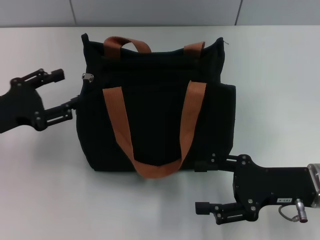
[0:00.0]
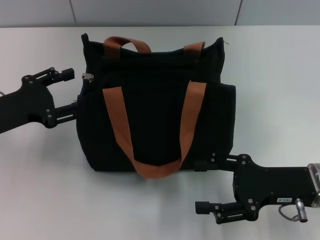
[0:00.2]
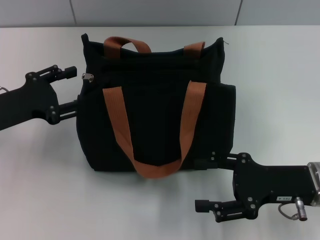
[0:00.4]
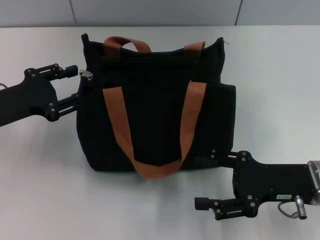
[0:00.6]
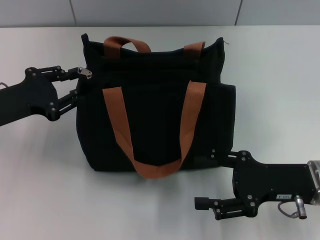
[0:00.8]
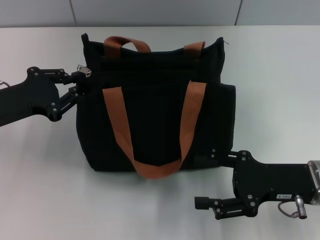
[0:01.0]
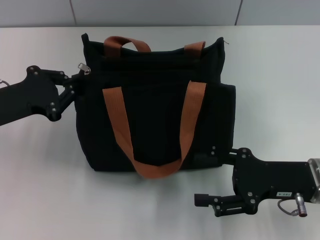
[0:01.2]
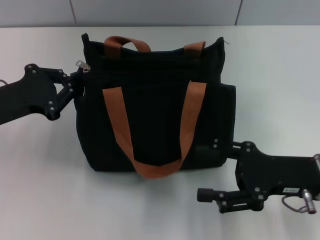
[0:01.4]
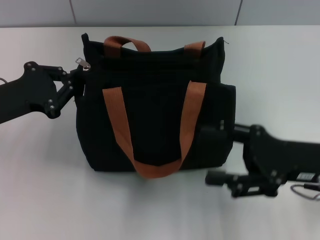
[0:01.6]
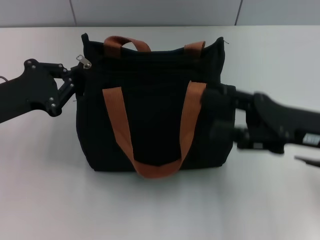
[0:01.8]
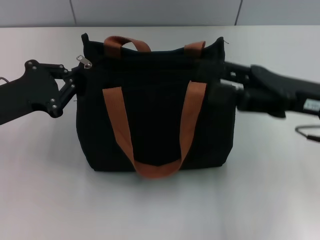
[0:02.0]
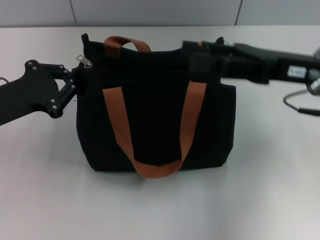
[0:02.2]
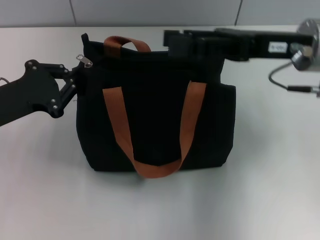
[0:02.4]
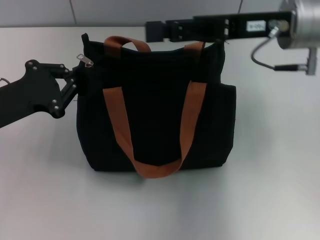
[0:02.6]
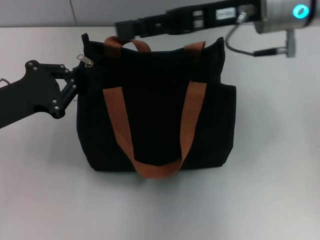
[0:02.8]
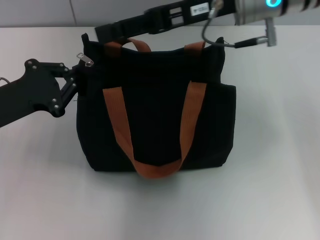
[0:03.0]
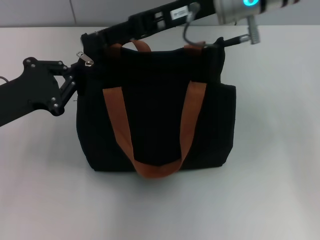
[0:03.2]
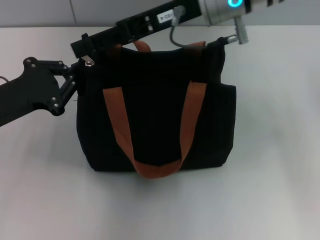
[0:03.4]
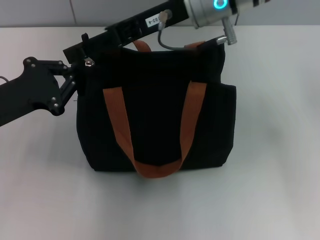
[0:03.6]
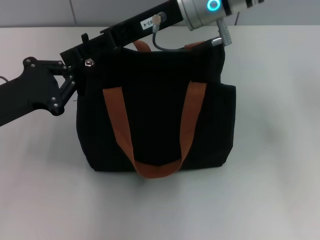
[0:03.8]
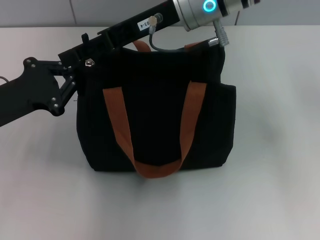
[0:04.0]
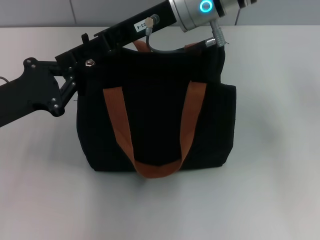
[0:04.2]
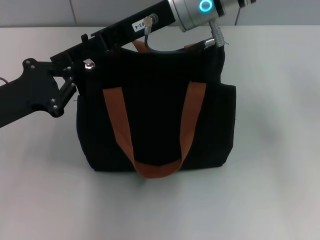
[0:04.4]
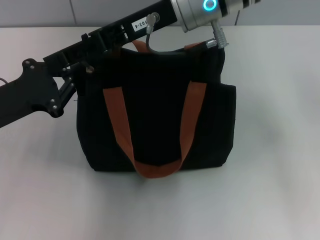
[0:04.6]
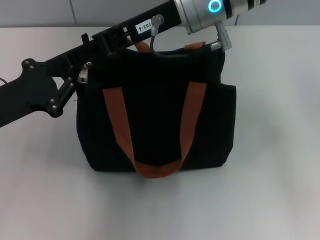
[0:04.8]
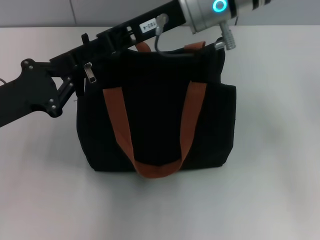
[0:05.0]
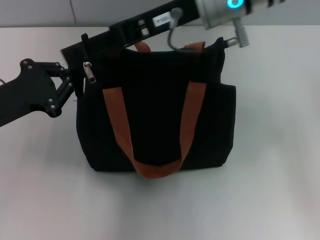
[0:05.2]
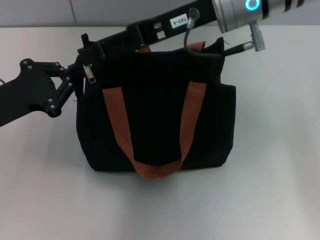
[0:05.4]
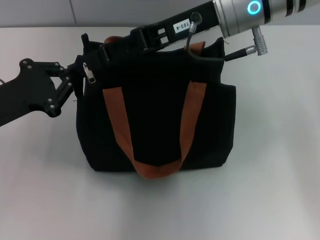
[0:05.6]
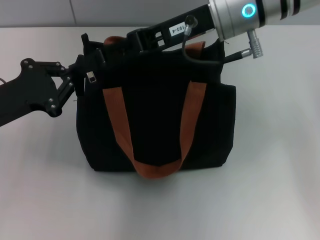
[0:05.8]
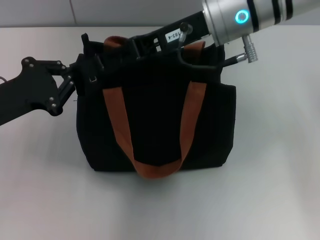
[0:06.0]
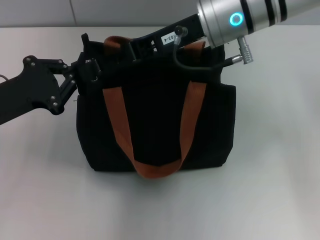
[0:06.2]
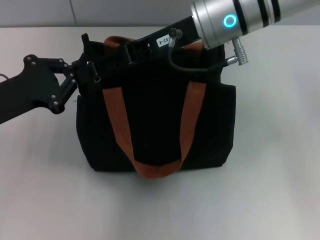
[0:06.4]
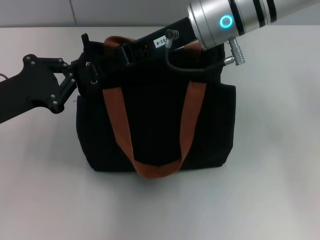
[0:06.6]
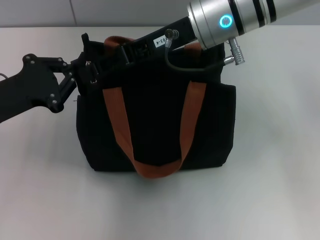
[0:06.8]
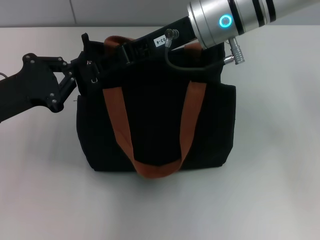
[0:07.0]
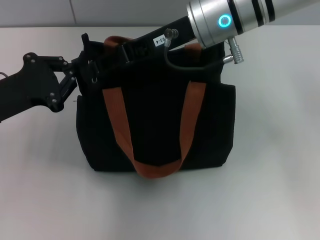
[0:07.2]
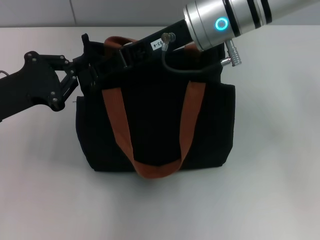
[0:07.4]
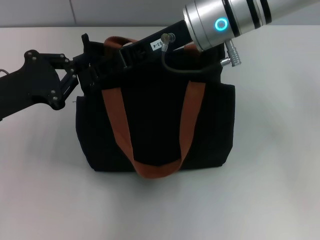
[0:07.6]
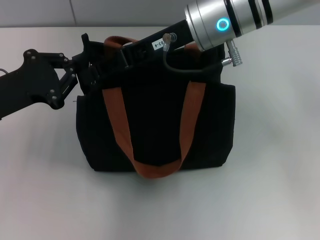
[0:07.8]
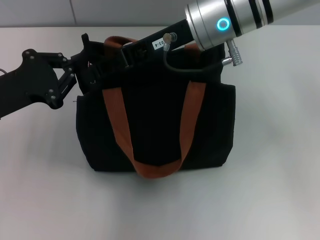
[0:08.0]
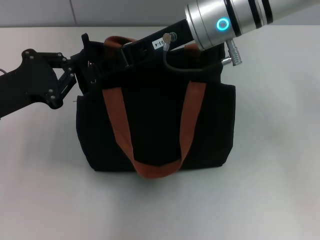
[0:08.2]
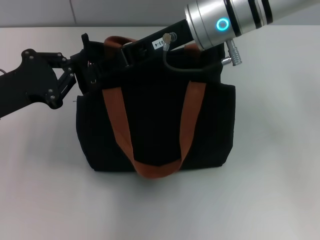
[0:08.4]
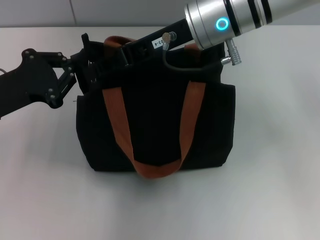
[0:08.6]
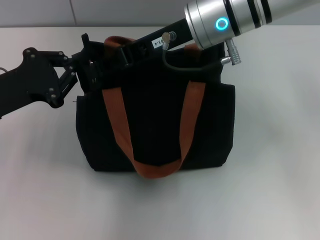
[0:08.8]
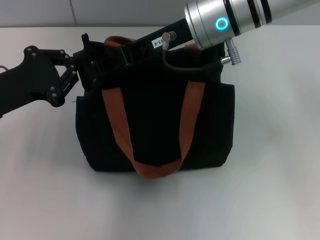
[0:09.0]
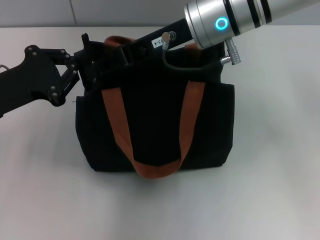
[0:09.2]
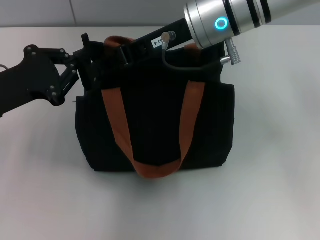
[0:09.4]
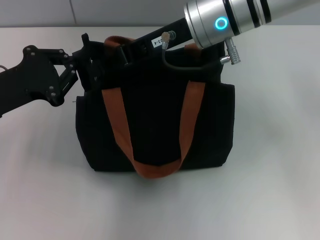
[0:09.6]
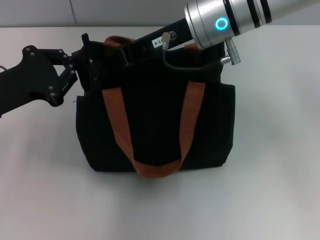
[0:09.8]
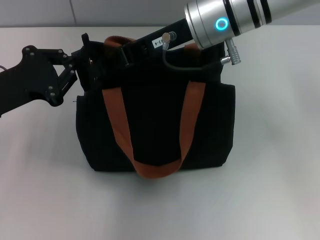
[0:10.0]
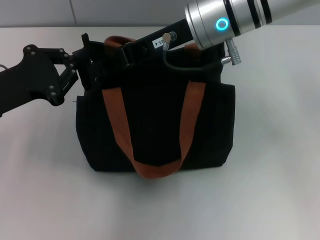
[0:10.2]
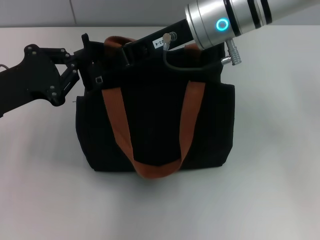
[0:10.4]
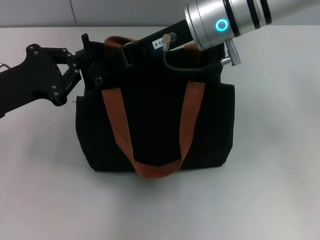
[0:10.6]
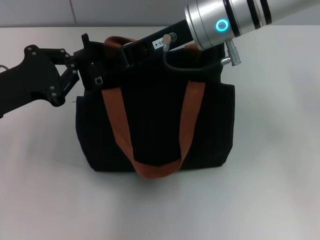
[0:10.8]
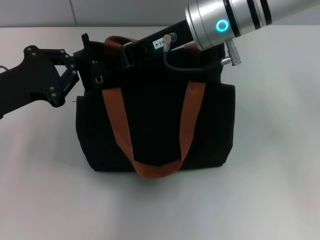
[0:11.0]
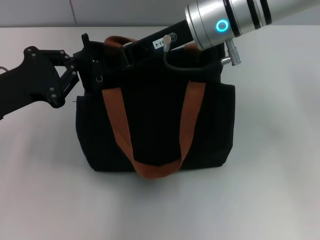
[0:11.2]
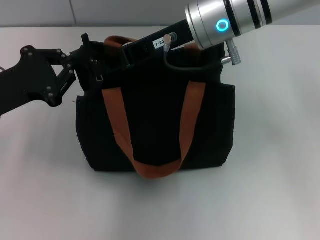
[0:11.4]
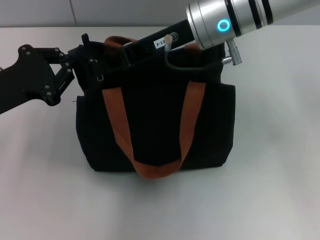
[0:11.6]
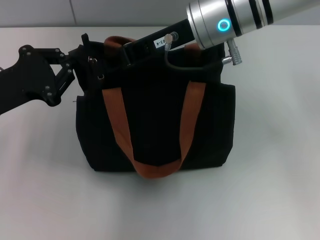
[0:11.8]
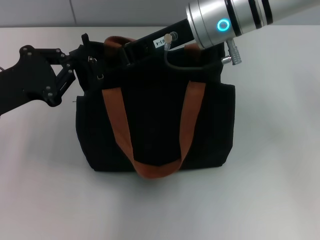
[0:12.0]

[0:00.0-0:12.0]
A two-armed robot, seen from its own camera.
0.0 to 1.6 s: The left gripper closes its fingers.
1.6 to 3.0 s: The right gripper goes approximately 25 cm forward, upward and to the left.
3.0 to 4.4 s: The right gripper moves to the left, about 5 cm.
4.4 to 7.6 s: The grippers move only a little.
7.6 to 12.0 s: Both grippers stay put.

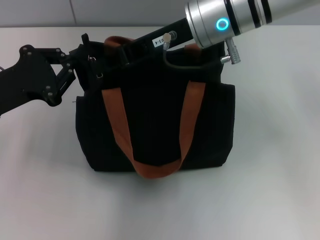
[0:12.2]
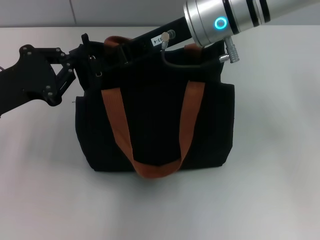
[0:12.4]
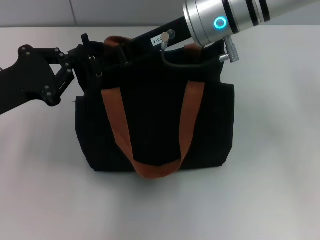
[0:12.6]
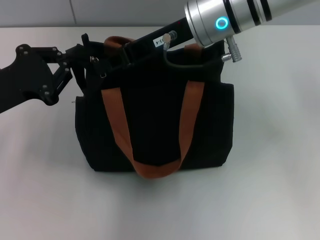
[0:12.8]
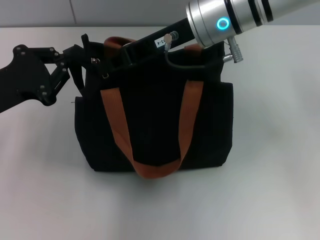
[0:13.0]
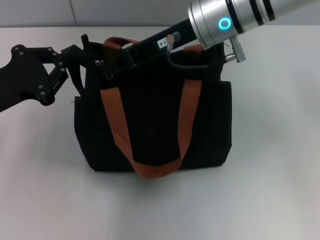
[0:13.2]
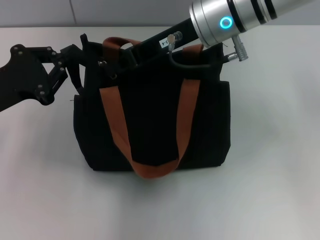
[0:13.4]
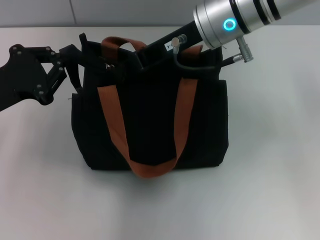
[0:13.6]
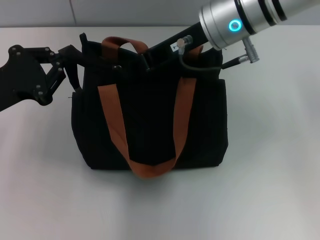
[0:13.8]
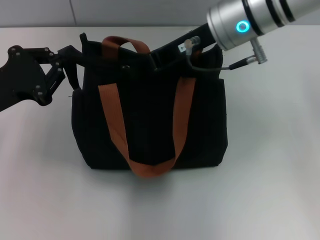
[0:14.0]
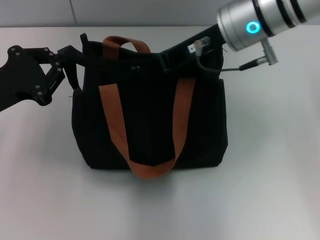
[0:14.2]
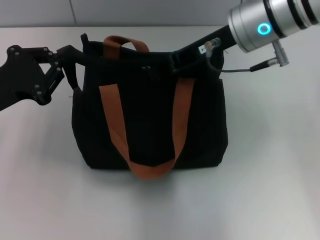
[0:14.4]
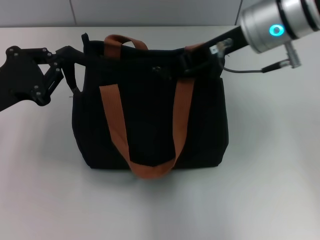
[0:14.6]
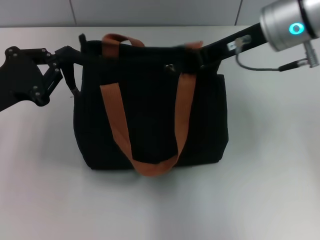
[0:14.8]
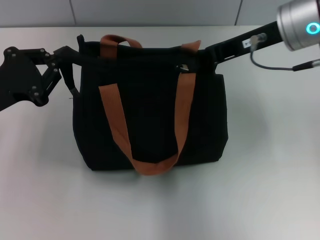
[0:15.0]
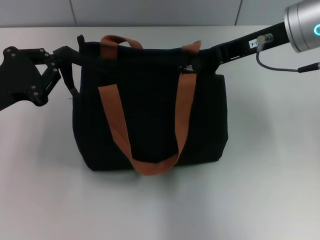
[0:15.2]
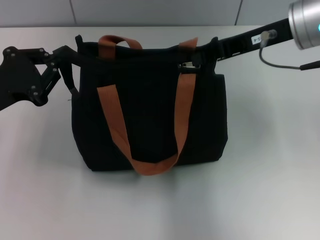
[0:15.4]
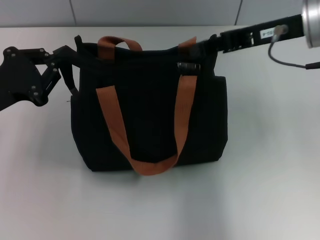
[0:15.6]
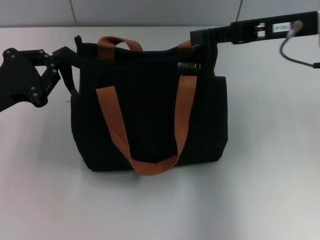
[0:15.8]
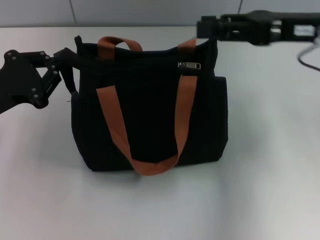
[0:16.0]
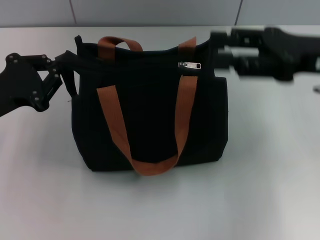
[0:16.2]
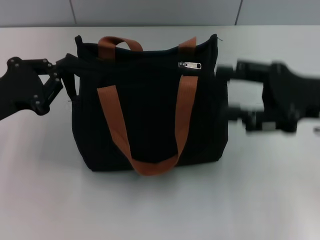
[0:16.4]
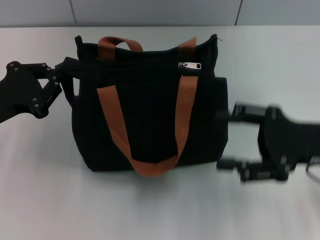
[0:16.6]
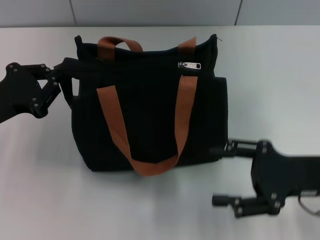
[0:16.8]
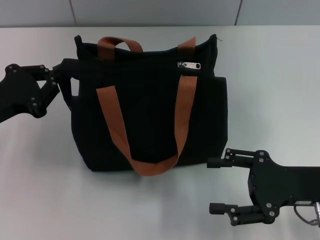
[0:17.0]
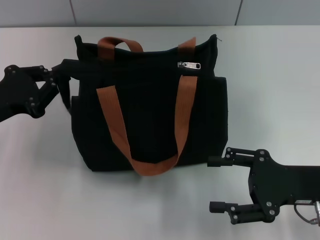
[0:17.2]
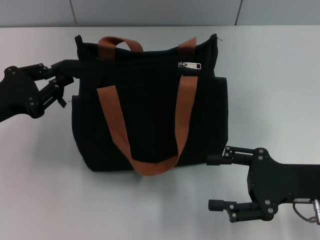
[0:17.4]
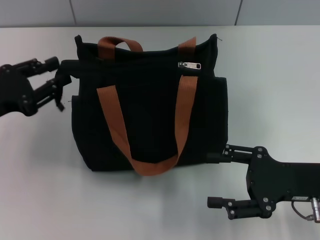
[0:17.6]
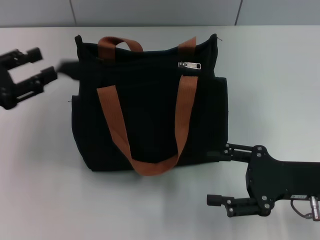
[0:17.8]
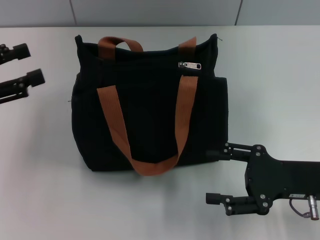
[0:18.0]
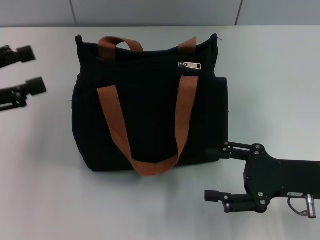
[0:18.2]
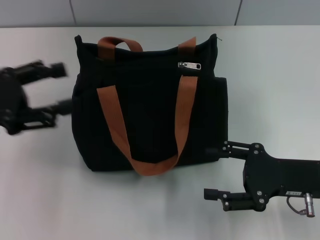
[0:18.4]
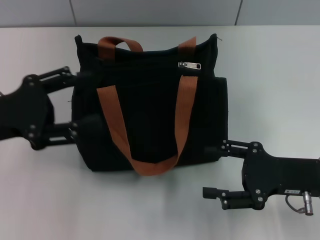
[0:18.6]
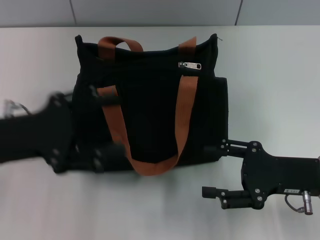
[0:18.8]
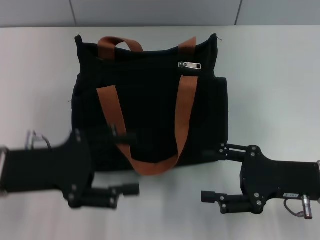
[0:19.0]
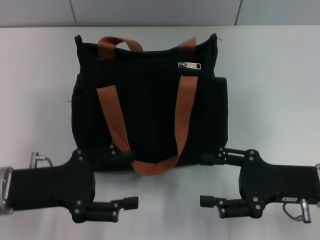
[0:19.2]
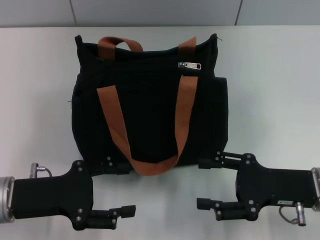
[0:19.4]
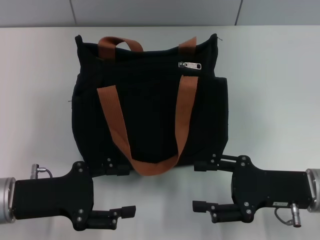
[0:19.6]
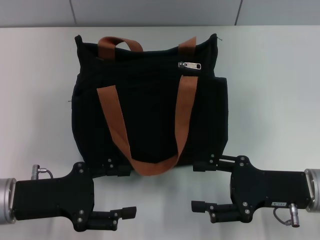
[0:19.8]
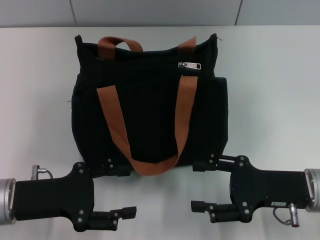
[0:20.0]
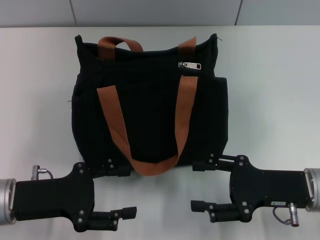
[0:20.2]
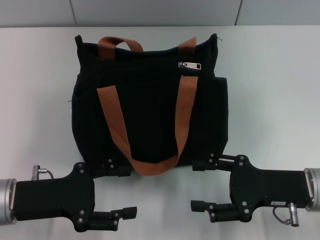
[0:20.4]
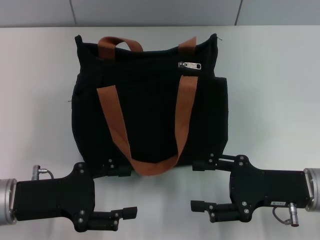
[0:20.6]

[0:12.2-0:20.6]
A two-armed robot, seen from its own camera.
Step, 12.2 to 15.8 s: Pull up the zipper with your right hand.
12.2 to 13.6 s: The grippers stay close to where they were, moving slightly.
13.6 to 15.0 s: The right gripper is displaced to the right by about 10 cm.
15.0 to 16.4 s: The right gripper heads backward, to the right and downward, covering roughly 15 cm, and opens its fingers.
16.4 to 17.8 s: The left gripper opens. Meanwhile the right gripper shifts some 10 cm downward and backward.
17.8 to 19.2 s: The left gripper moves to the right and backward, roughly 10 cm, and opens up.
19.2 to 20.6 s: The grippers make only small movements.

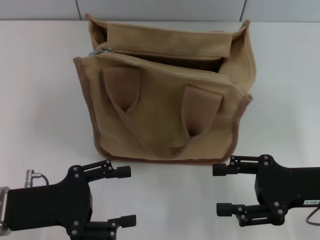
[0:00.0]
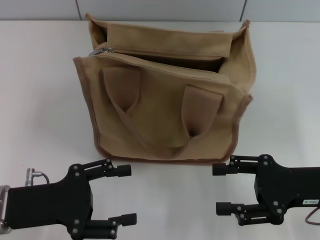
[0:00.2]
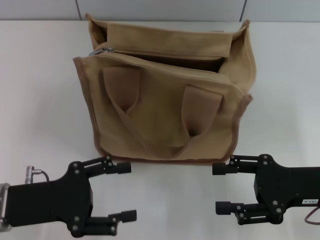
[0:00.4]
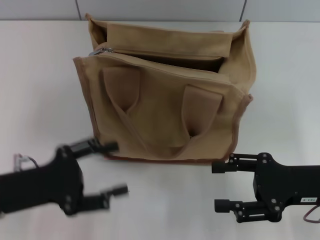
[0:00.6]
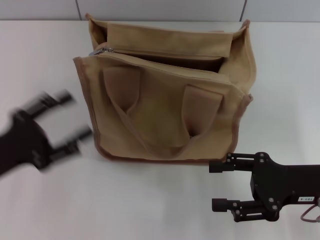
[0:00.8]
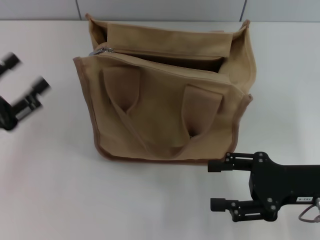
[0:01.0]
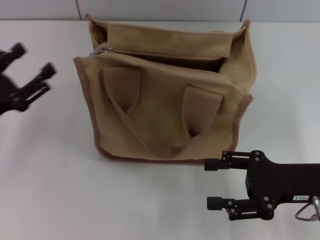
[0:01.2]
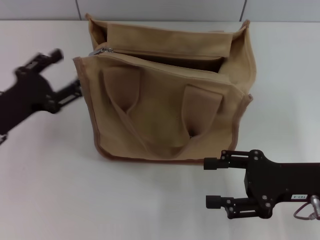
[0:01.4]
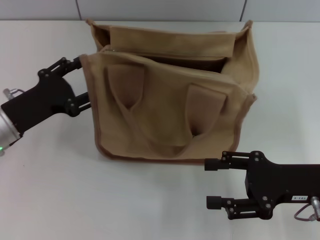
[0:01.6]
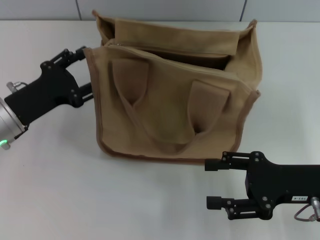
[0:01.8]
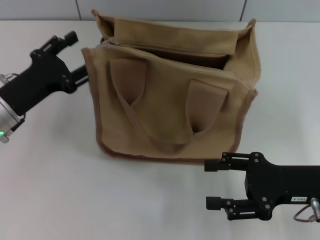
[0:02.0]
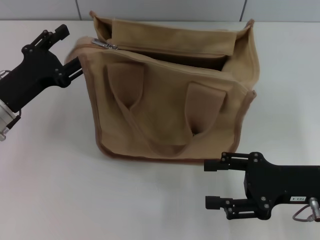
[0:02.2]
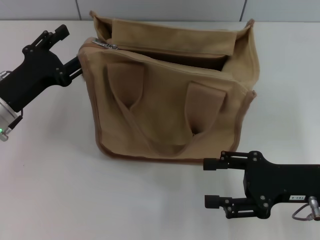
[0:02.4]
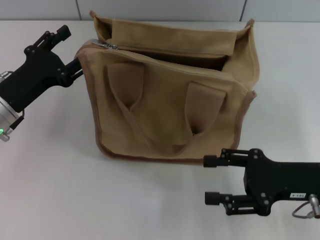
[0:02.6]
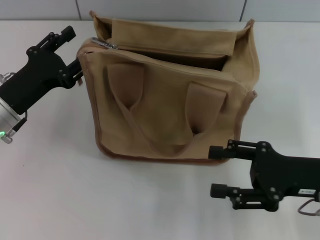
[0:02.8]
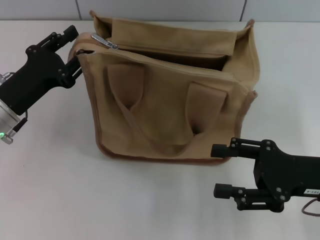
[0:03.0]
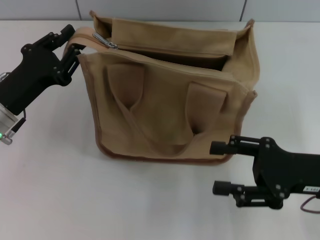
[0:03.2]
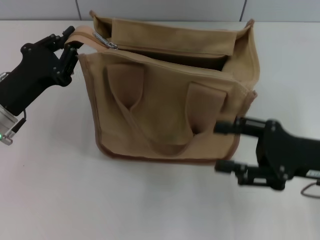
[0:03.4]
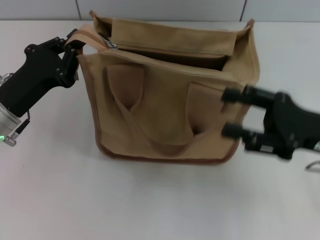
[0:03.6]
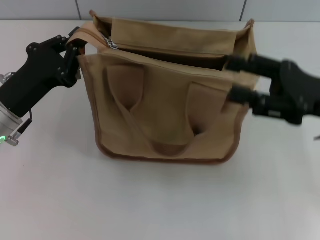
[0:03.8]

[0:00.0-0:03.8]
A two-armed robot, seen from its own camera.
0.0 to 1.2 s: The left gripper is displaced to the left and forward by some 10 cm.
1.2 to 2.6 s: The left gripper ends up about 5 cm from where it was.
2.6 to 3.8 s: The right gripper goes about 10 cm upward. The left gripper closes up.
